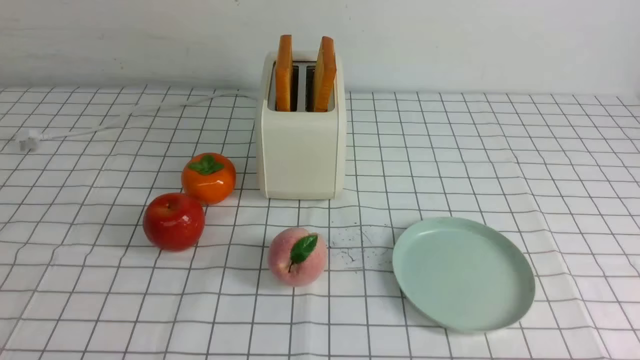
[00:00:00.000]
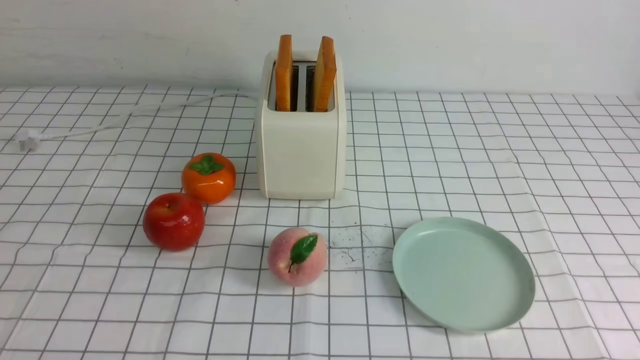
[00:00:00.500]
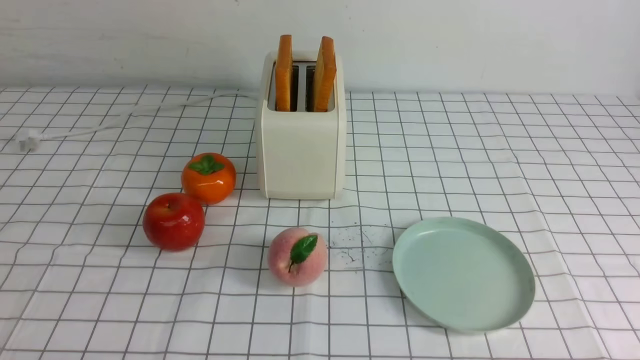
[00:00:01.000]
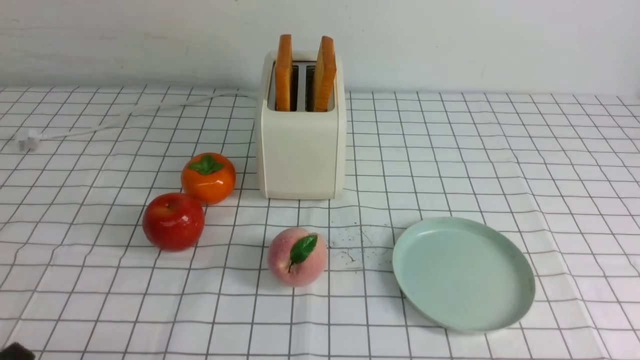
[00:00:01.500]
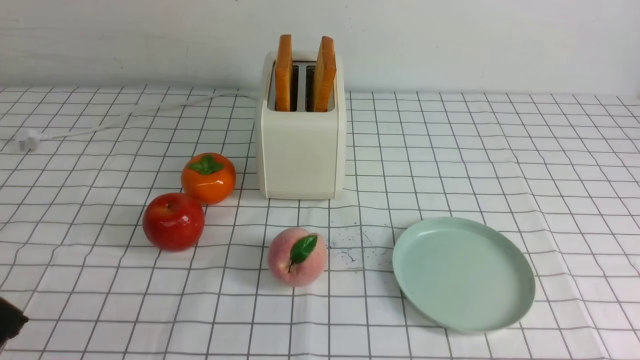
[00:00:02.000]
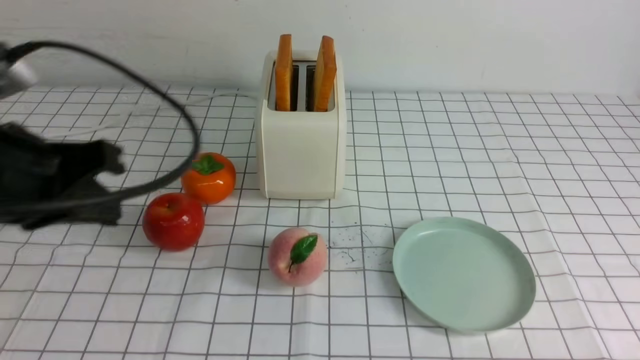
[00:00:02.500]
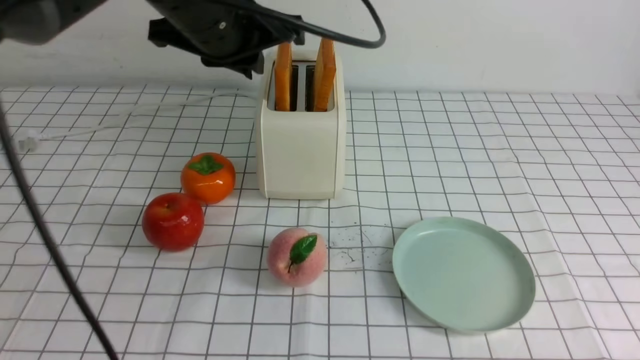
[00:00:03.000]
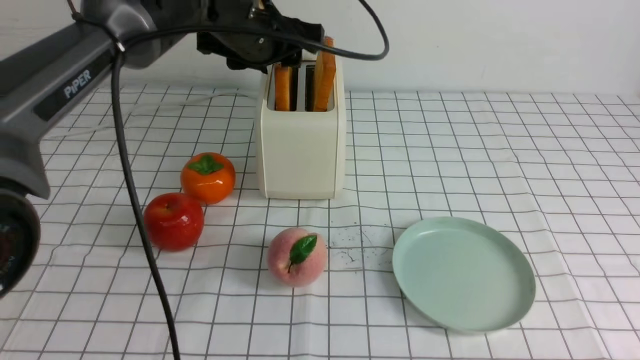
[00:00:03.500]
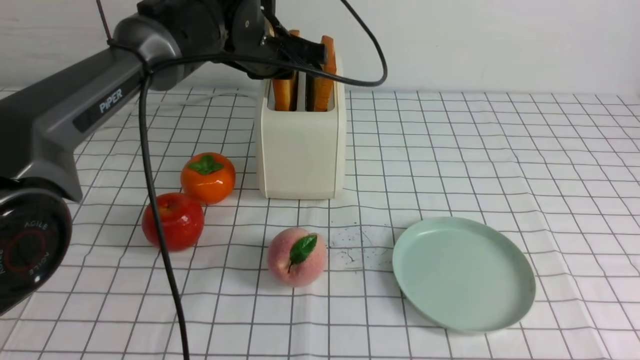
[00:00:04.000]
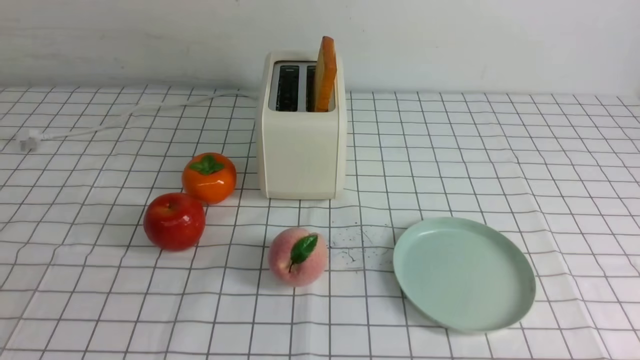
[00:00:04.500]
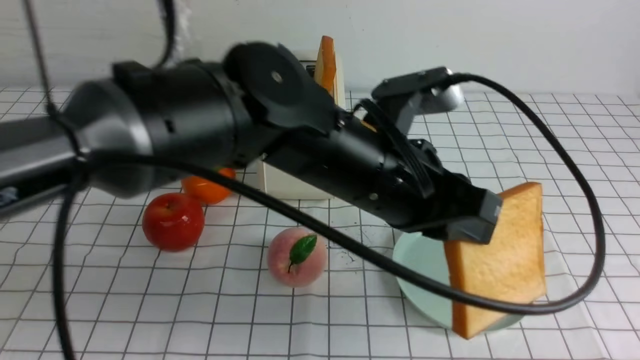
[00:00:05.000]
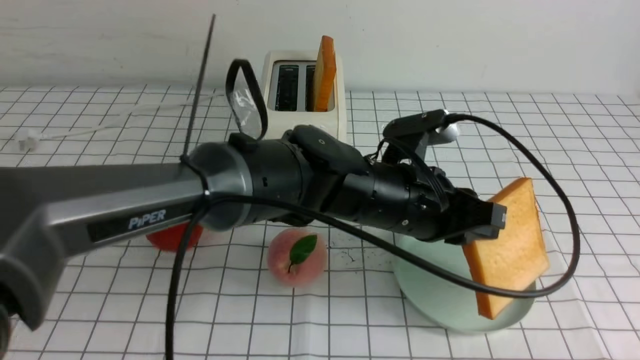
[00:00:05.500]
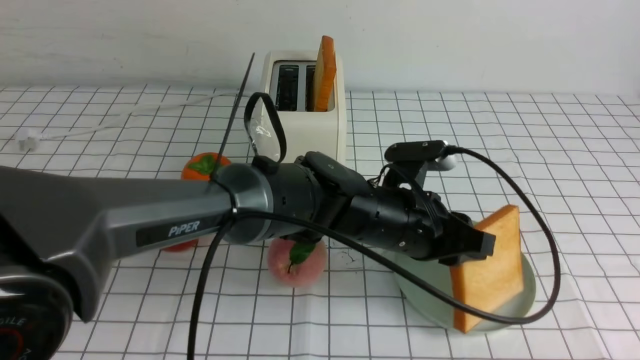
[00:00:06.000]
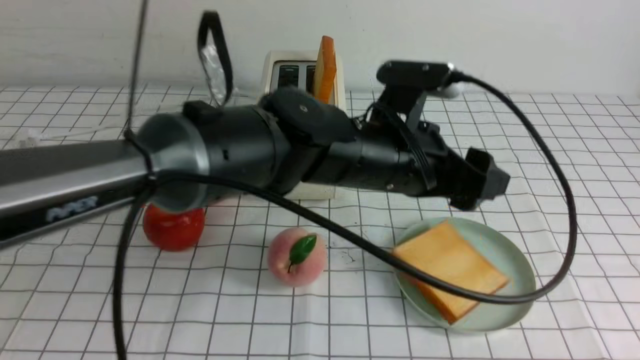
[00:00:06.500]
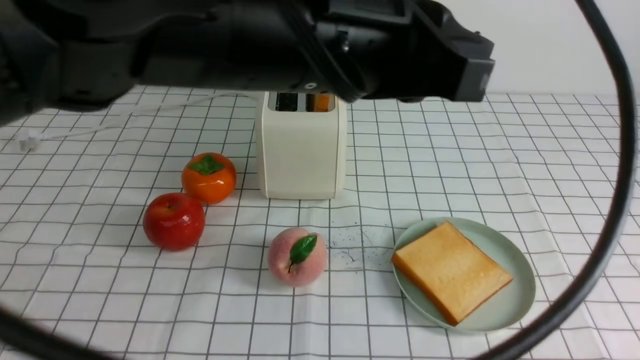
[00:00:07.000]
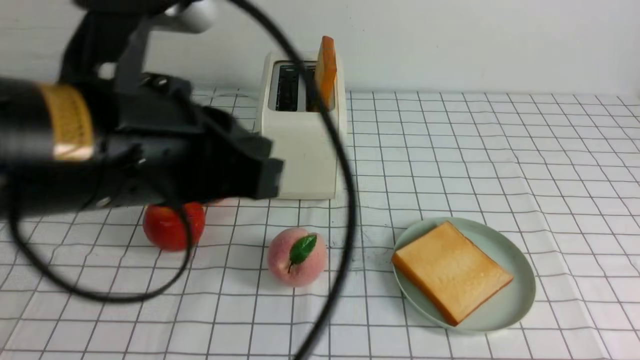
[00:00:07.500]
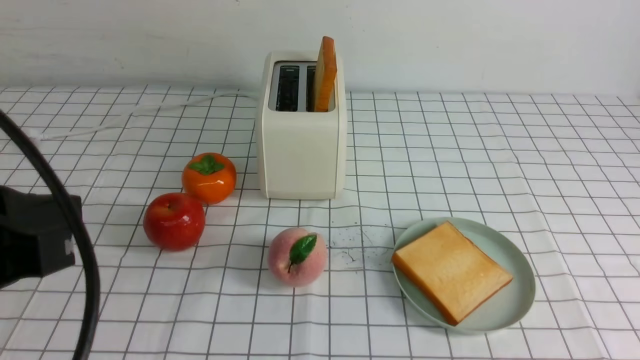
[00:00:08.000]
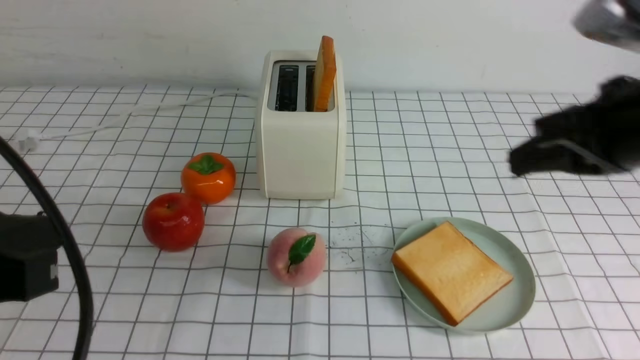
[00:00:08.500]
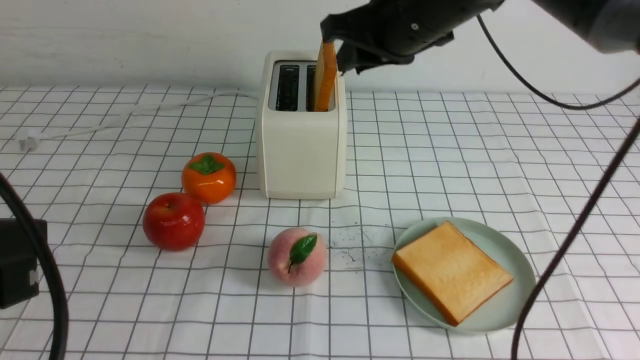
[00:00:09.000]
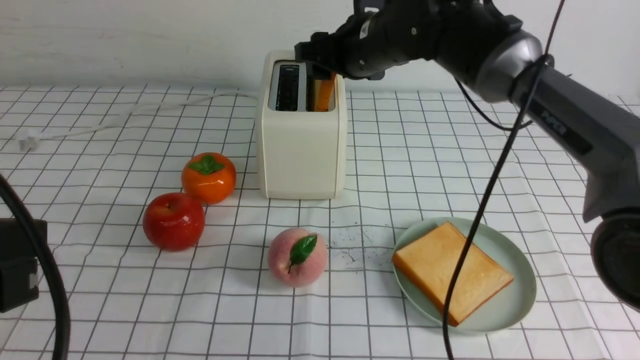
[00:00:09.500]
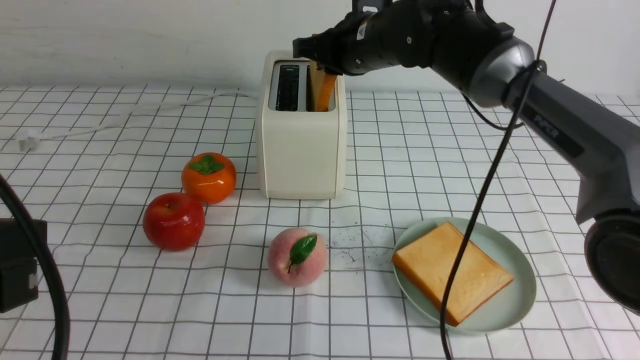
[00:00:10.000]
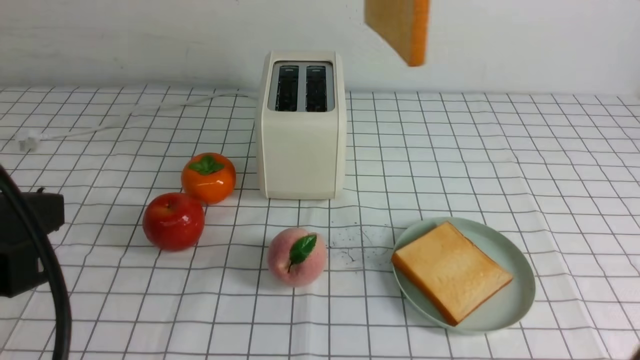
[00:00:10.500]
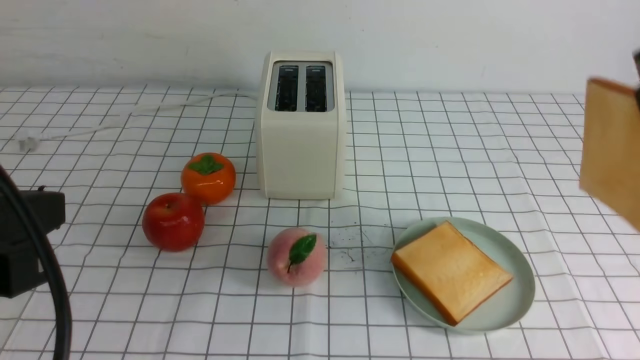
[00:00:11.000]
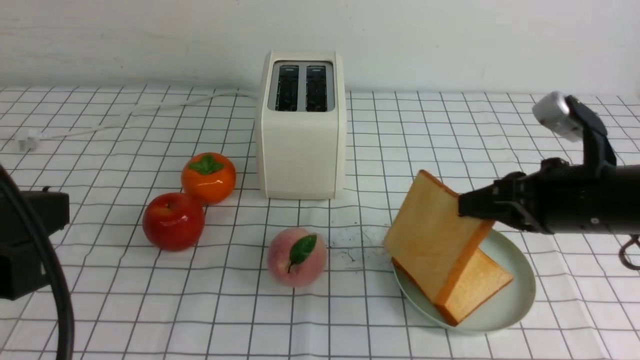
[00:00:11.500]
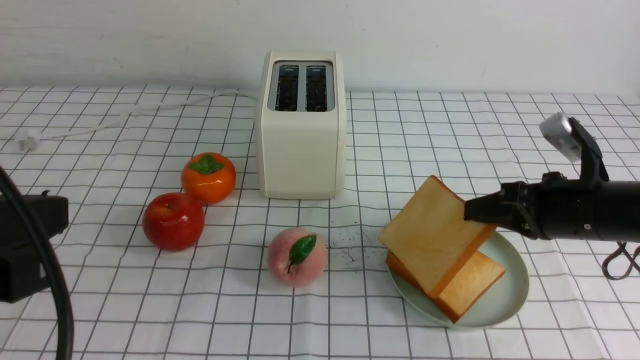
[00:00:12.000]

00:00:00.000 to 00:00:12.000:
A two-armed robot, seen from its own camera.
Task of the whole recording: take toasted bread from bread machine on white checkered table place on plate.
Step, 00:00:00.000 to 00:00:04.000: use the left arm to take out a slice of bread.
Step, 00:00:04.500 to 00:00:06.500: use the left arm to put a slice of bread into the empty plate.
Step, 00:00:07.000 to 00:00:10.000: use the right arm to take out a slice of bread.
00:00:02.000 to 00:00:04.000: The left gripper heads forward and to the right, covering about 40 cm, and opens, then closes again.
00:00:04.000 to 00:00:06.000: The left gripper heads backward, to the right and downward, covering about 25 cm.
00:00:06.000 to 00:00:08.000: The left gripper moves to the left, backward and upward, about 35 cm, and closes up. The right gripper shifts roughly 10 cm upward.
00:00:08.000 to 00:00:10.000: The right gripper travels forward and to the left by approximately 50 cm, and opens and closes again.
00:00:10.000 to 00:00:12.000: The right gripper moves to the right, backward and downward, roughly 30 cm.

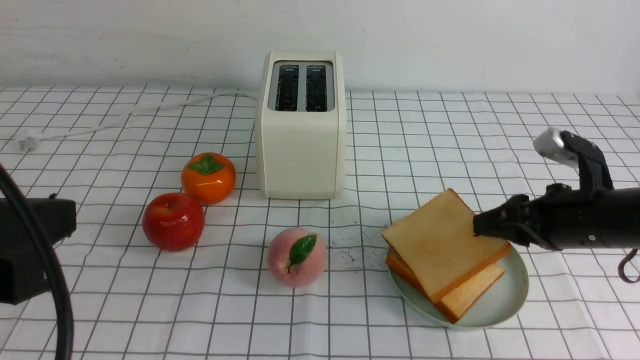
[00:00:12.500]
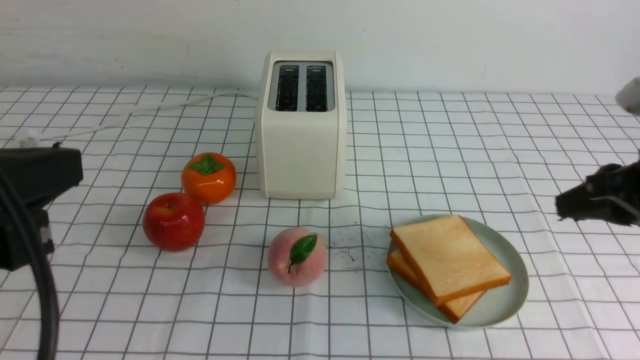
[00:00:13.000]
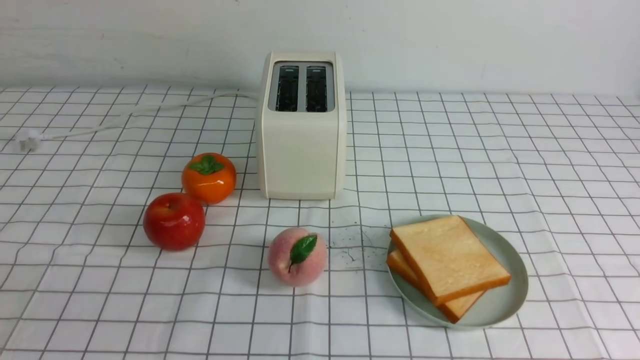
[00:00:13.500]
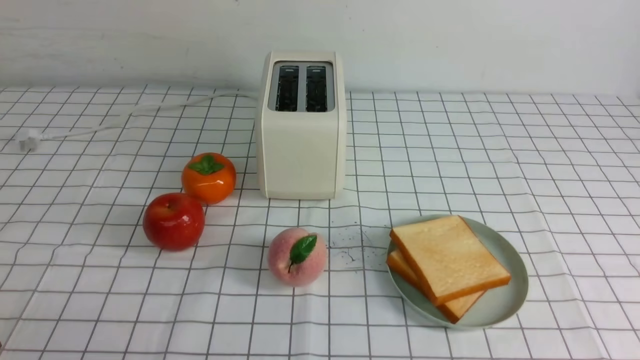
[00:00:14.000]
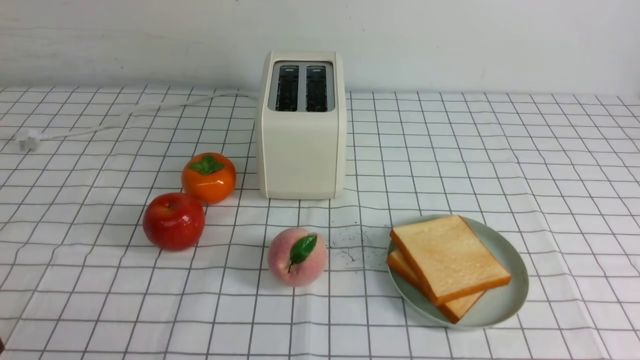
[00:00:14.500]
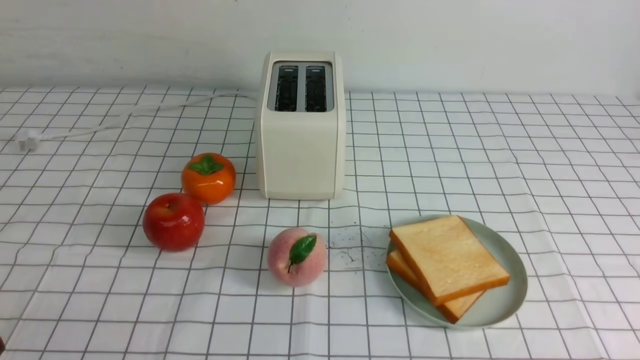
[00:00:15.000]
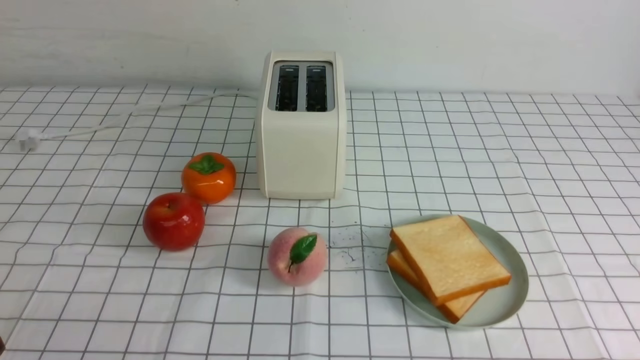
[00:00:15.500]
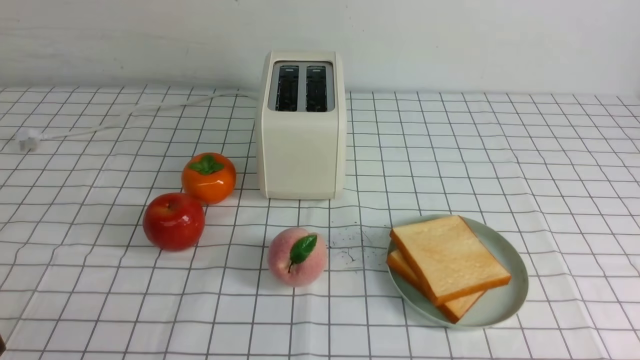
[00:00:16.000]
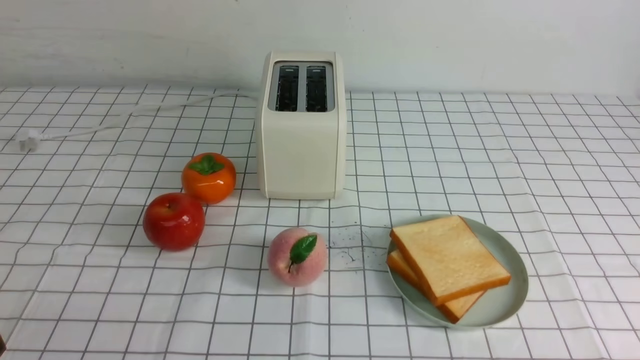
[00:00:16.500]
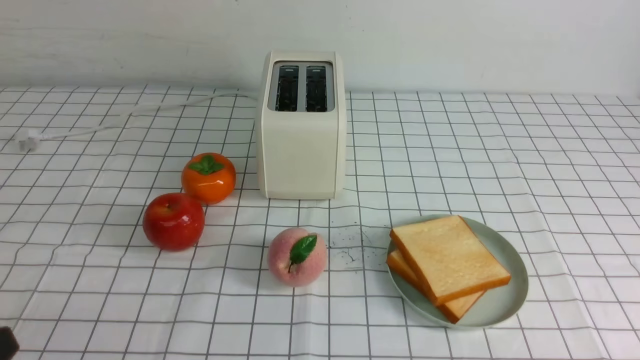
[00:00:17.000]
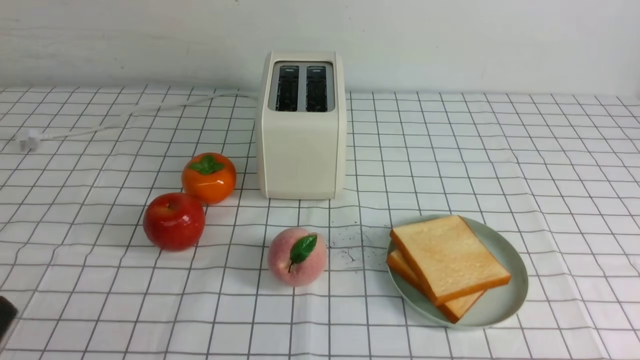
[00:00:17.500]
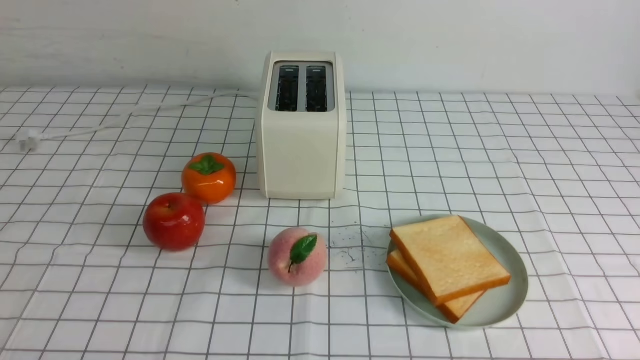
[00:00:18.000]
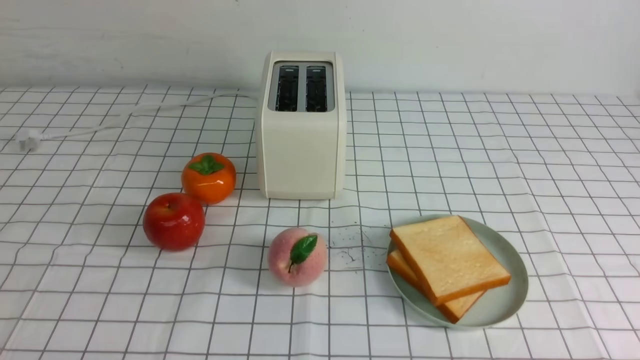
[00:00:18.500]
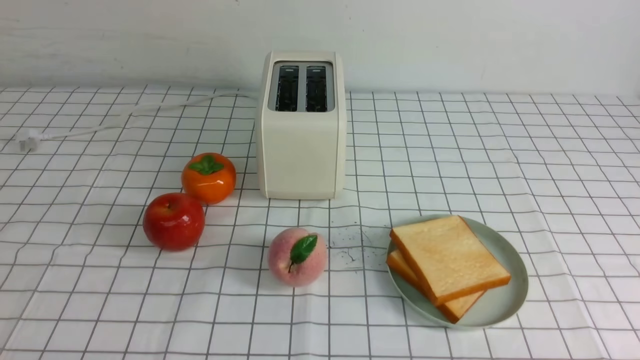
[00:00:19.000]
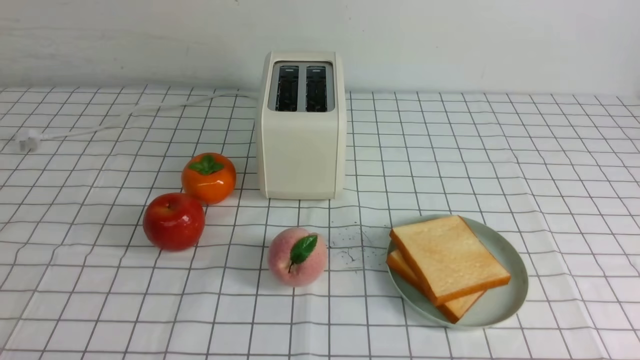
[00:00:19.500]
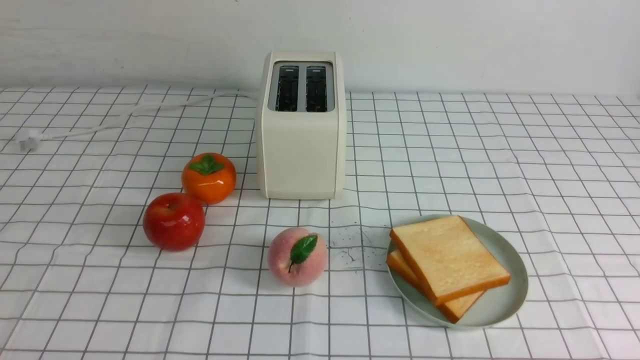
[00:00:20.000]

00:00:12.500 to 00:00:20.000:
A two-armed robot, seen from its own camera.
Task of the whole recording: take toasted bread from bread machine on white checkered table place on plate.
00:00:12.500 to 00:00:14.500: The right gripper shifts approximately 25 cm backward, and closes its fingers. The left gripper shifts some 15 cm downward and to the left.
00:00:18.000 to 00:00:20.000: The two grippers keep their place.
